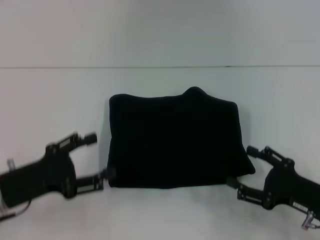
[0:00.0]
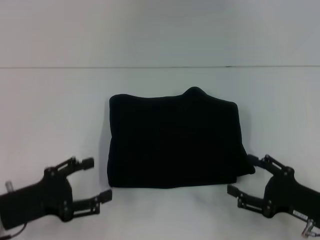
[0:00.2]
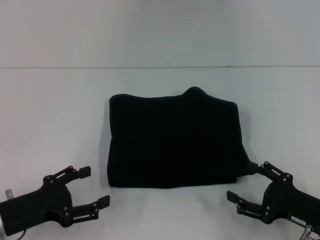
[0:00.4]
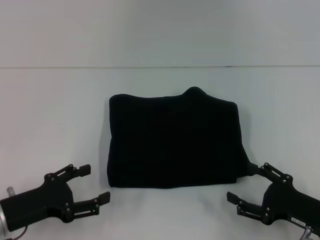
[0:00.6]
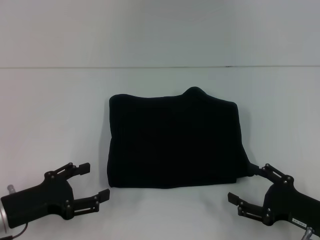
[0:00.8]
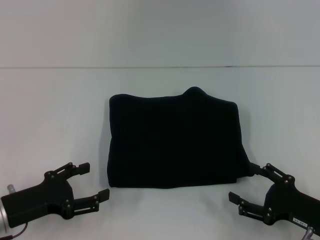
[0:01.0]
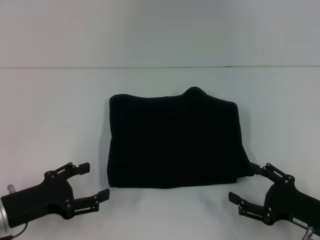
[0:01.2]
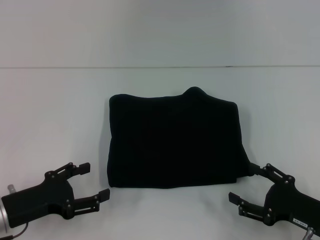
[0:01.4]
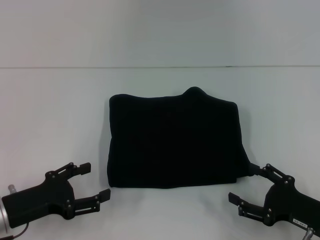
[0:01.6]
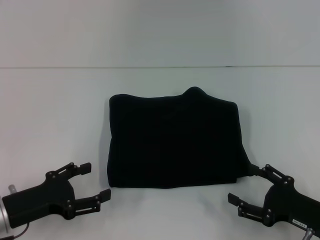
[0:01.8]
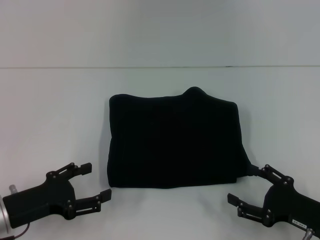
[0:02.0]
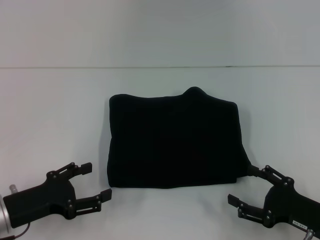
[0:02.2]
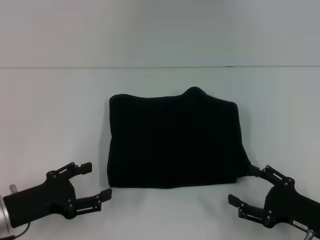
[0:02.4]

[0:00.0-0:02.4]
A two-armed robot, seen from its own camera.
0:00.0 to 0:01.2: The grippers move only a little.
0:01.2 to 0:02.4: The two grippers keep their place.

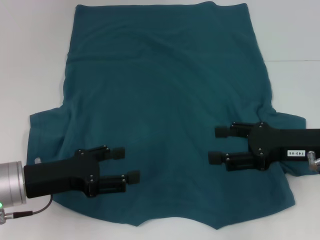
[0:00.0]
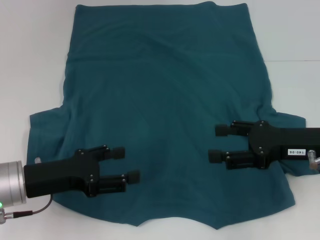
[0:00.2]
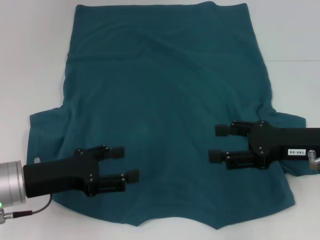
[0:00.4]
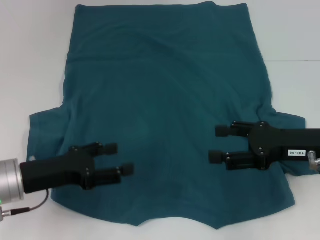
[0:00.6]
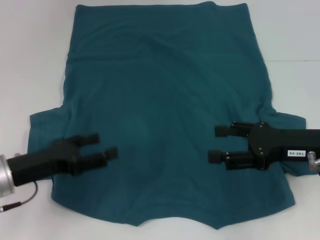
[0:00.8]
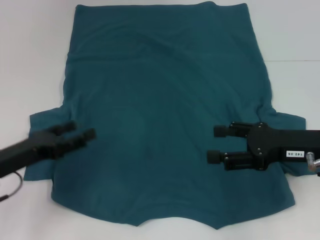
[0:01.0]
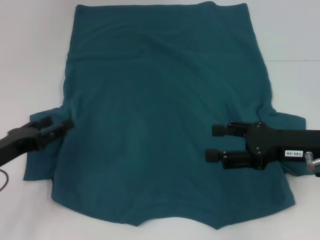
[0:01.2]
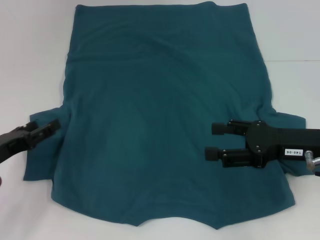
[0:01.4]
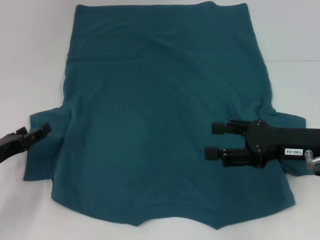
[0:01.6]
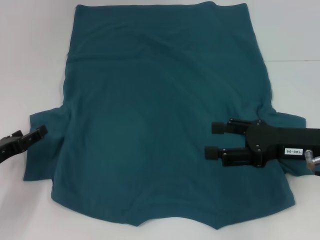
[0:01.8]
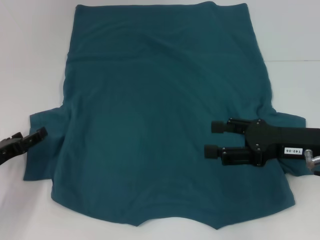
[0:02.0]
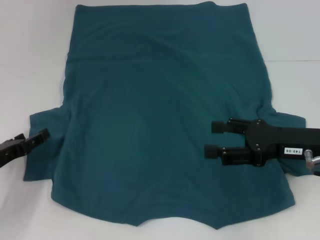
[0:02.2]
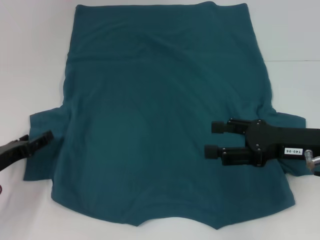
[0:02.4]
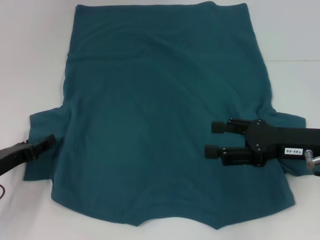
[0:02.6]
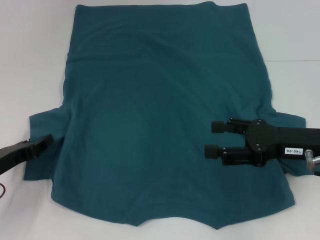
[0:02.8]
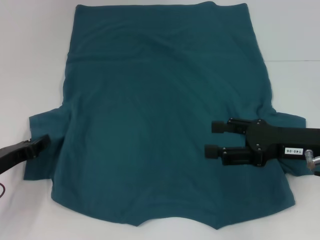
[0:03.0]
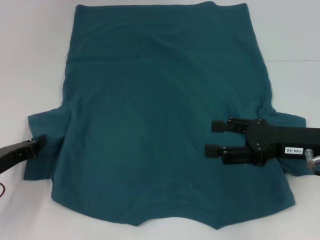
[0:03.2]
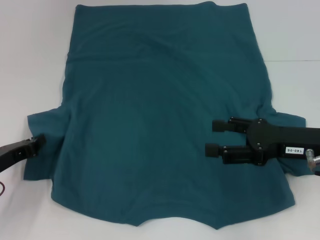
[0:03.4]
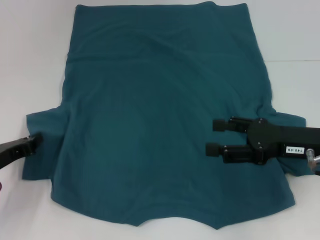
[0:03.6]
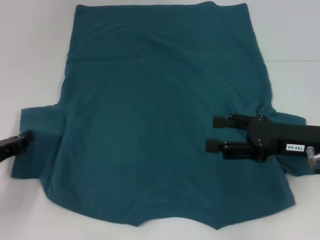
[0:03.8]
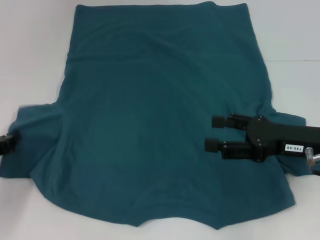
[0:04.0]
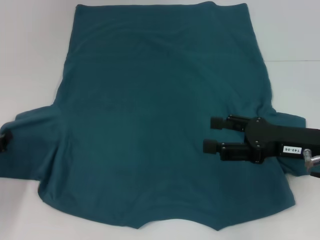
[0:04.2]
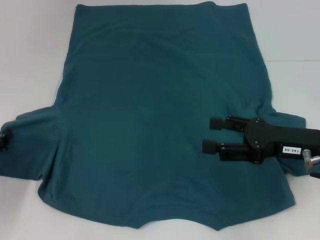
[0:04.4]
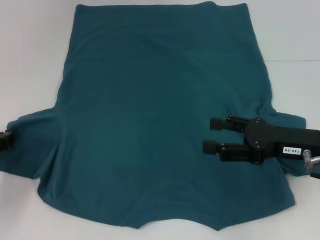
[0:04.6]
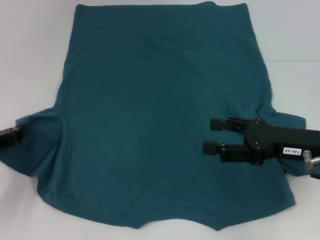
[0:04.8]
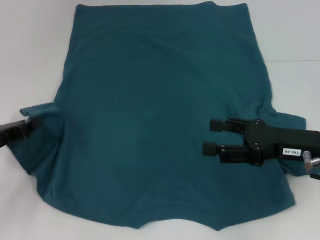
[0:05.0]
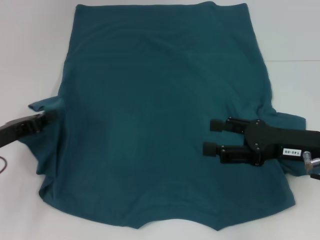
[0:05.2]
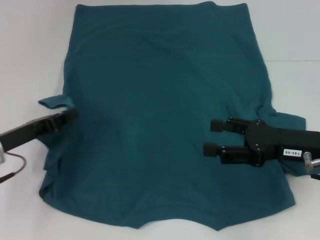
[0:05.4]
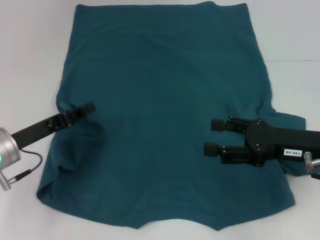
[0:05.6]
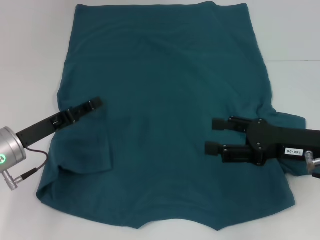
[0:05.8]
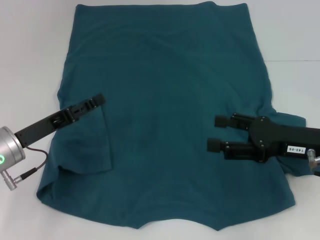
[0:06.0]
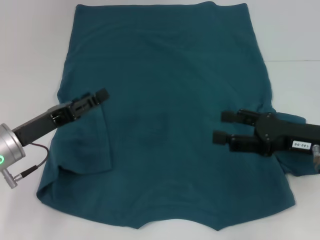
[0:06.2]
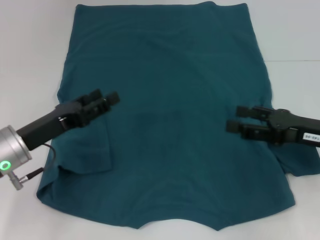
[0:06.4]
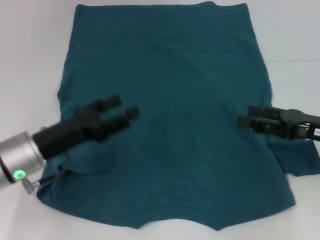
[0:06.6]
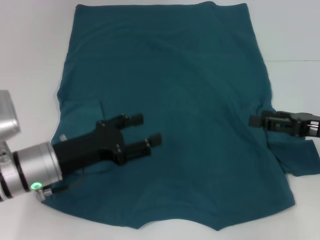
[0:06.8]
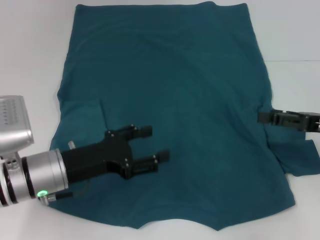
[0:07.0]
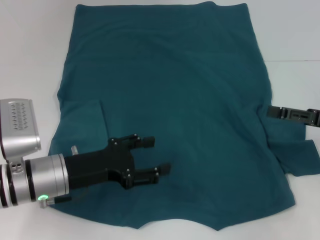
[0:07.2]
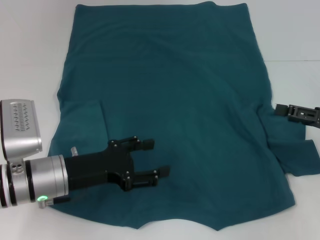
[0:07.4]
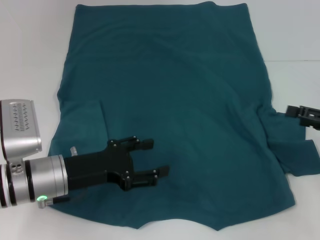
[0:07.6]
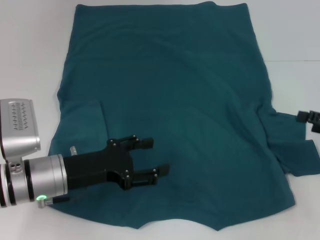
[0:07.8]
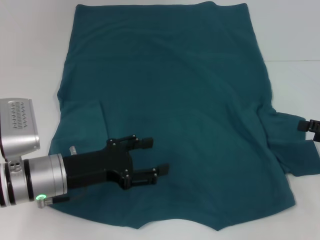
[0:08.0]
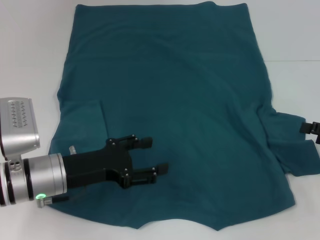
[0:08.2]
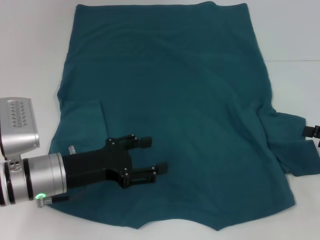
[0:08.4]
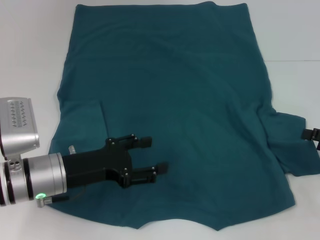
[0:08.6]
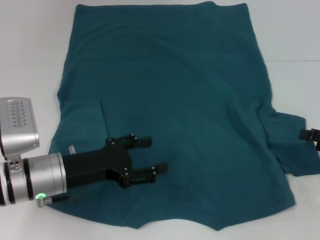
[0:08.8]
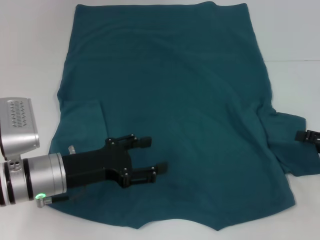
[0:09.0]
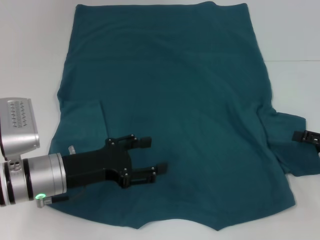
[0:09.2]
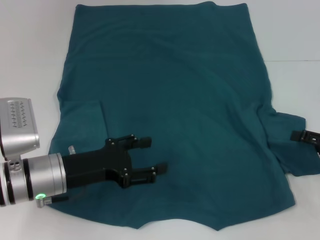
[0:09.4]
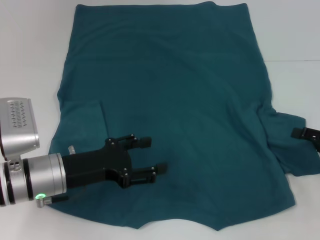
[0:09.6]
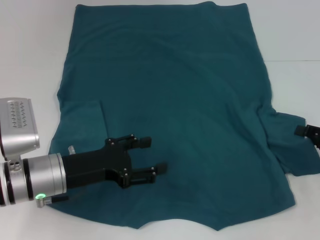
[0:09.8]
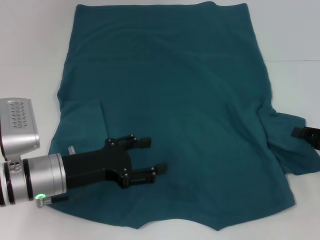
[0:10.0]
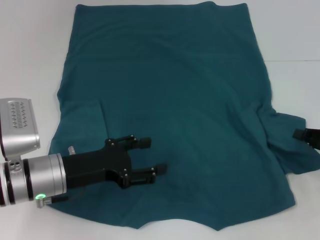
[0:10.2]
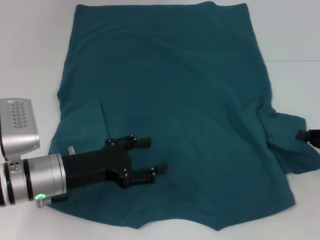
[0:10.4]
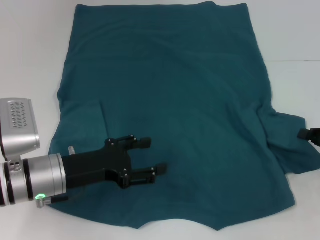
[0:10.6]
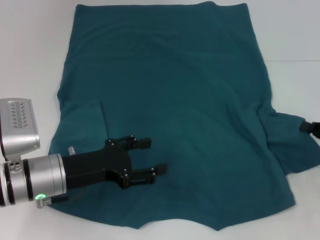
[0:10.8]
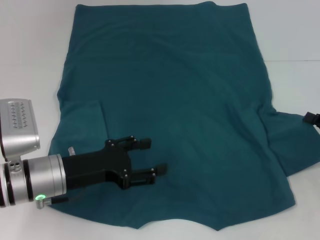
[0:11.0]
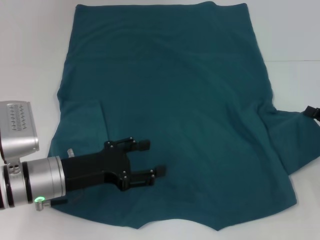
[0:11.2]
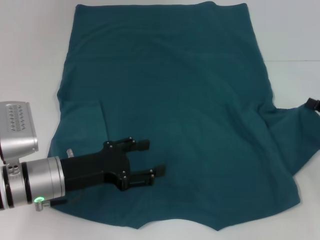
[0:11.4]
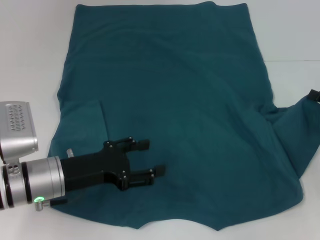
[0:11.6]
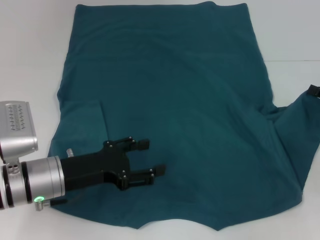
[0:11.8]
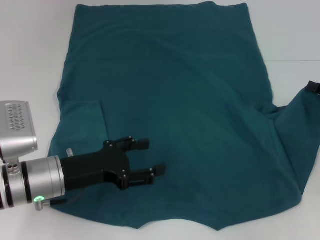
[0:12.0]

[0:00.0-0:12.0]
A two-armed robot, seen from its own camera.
Step, 0:00.0 to 0:06.0: Fold the bottom left sleeve with your left hand.
0:00.0 to 0:01.6: The left gripper travels to the left by approximately 10 cm.
0:01.6 to 0:03.0: The left gripper closes.
0:03.0 to 0:04.4: The left gripper closes up.
0:04.4 to 0:06.0: The left gripper moves to the right, approximately 10 cm, and opens.
0:06.0 to 0:07.6: The right gripper heads to the right, covering about 10 cm. The left gripper shifts some 5 cm to the right.
0:07.6 to 0:09.0: The grippers move only a little.
0:10.4 to 0:12.0: The right gripper ends up roughly 5 cm from where it was.

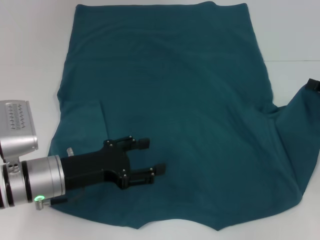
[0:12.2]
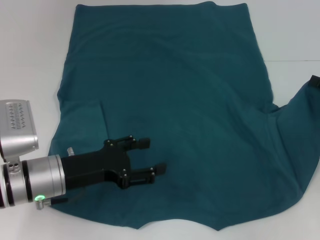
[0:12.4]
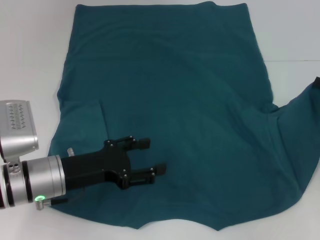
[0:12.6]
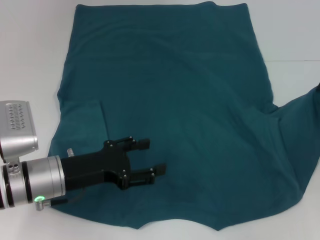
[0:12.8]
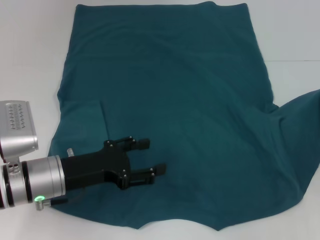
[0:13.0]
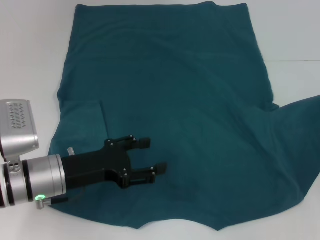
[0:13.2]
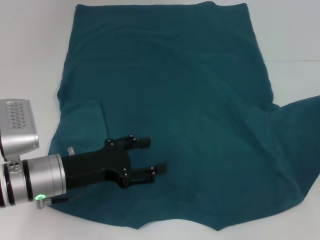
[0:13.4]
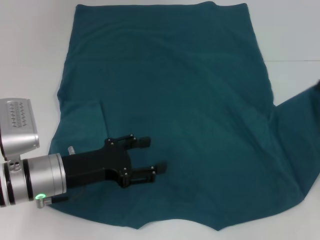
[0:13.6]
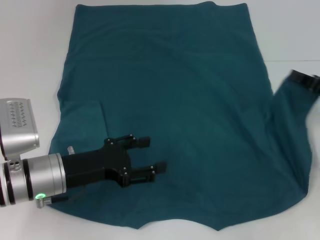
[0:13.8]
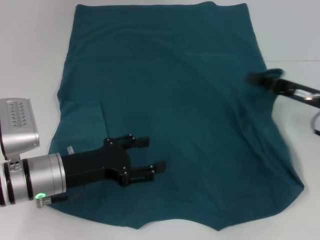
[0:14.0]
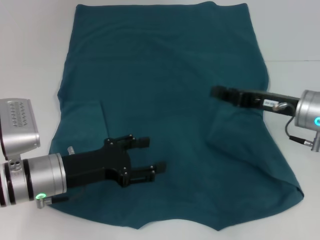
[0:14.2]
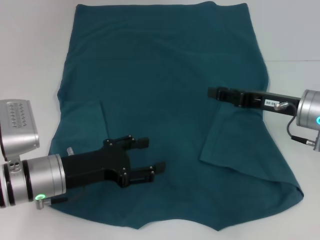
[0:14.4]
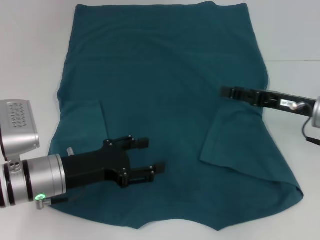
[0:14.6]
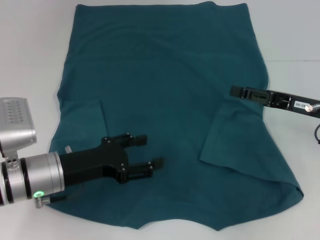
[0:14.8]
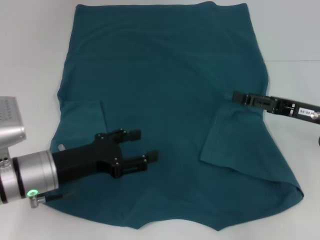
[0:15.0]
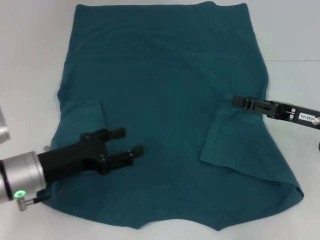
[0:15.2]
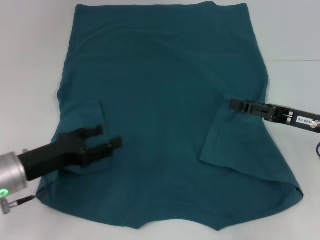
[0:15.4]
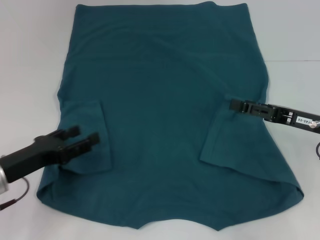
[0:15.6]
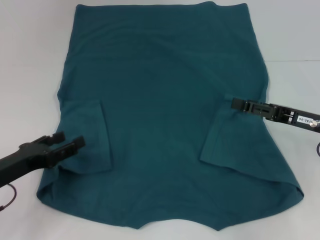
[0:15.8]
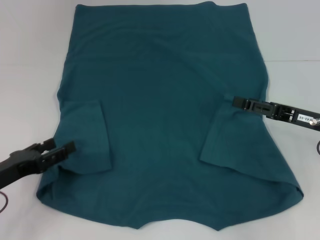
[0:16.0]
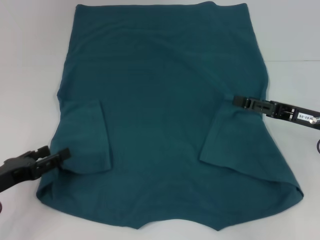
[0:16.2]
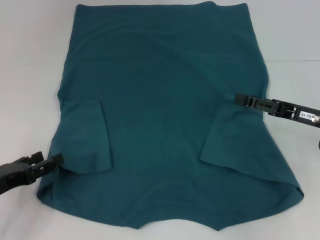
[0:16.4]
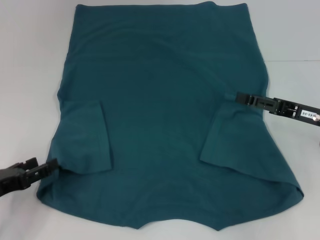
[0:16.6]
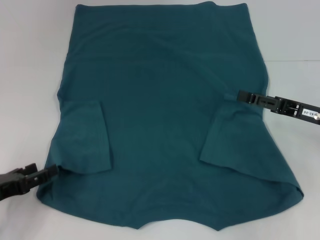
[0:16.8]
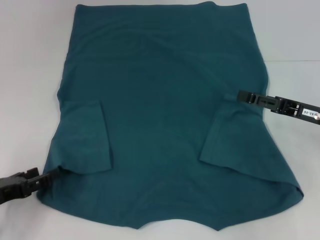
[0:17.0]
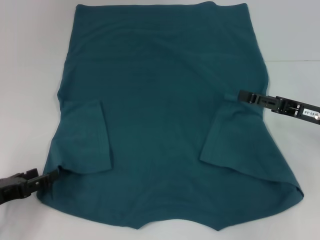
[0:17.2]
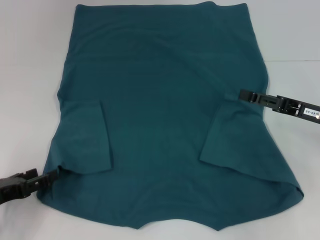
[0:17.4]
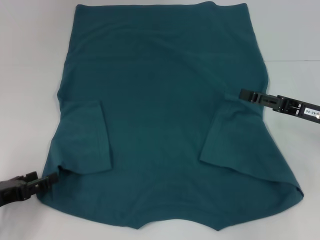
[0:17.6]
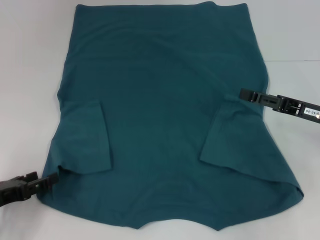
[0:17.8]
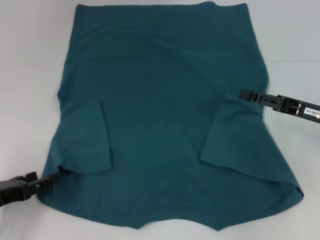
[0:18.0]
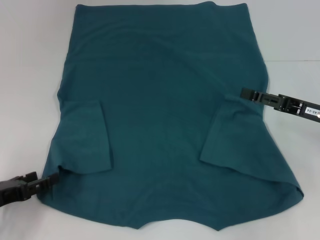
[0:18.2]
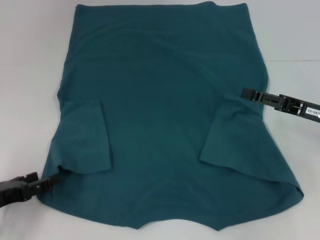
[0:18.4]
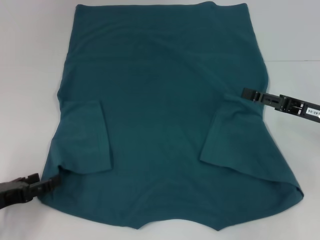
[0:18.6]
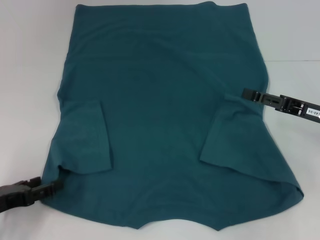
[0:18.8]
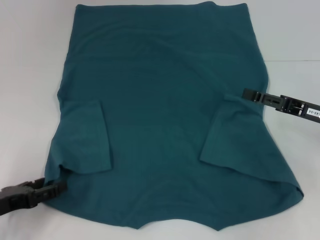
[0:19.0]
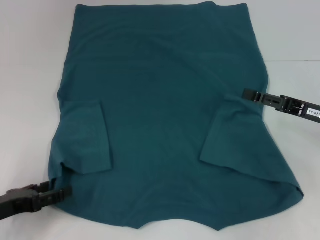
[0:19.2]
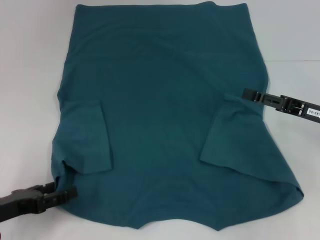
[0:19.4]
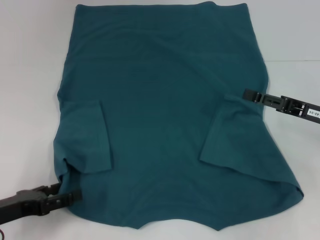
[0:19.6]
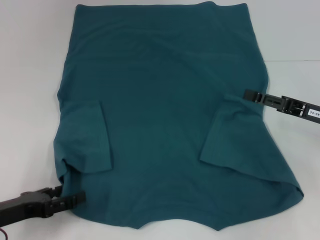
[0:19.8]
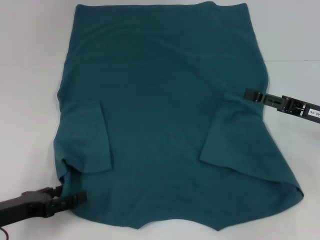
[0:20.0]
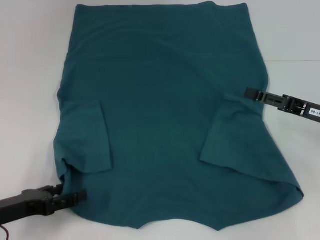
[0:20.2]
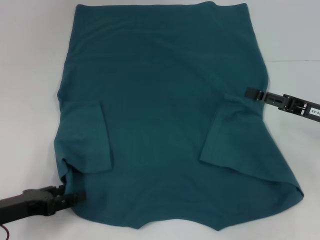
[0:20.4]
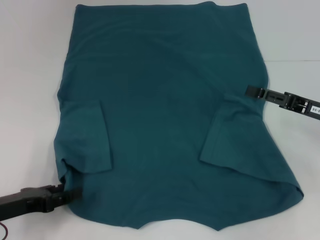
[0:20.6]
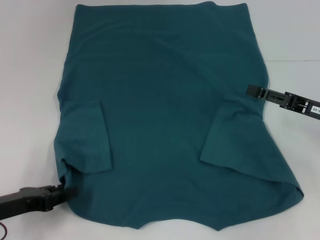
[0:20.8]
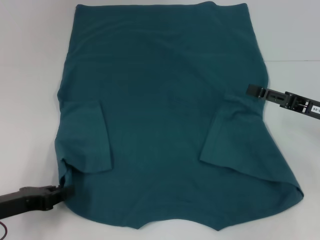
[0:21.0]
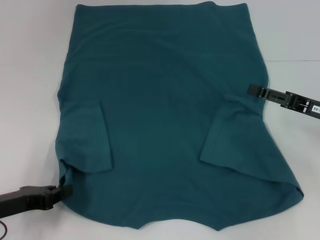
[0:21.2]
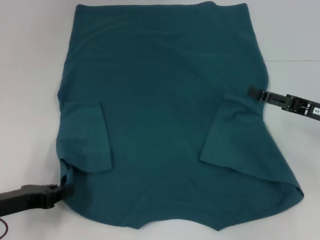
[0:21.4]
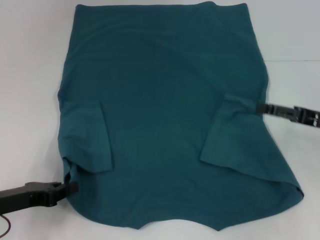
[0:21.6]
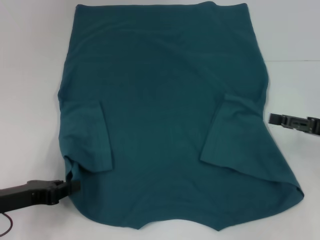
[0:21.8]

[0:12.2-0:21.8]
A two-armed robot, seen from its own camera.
Step, 0:12.2 to 0:14.4: Fold the bottom right sleeve to the right.
Step, 0:14.6 to 0:21.2: Grab the bottom left corner with your left hand.
0:12.2 to 0:13.8: The grippers move only a little.
0:13.8 to 0:15.4: The left gripper shifts by roughly 5 cm. Meanwhile the right gripper moves to the left, roughly 5 cm, and opens up.
0:15.4 to 0:17.0: The left gripper moves to the left and backward, roughly 10 cm.
0:17.0 to 0:18.6: The two grippers keep their place.
0:18.6 to 0:20.2: The grippers move only a little.
0:20.2 to 0:21.8: The left gripper closes.
